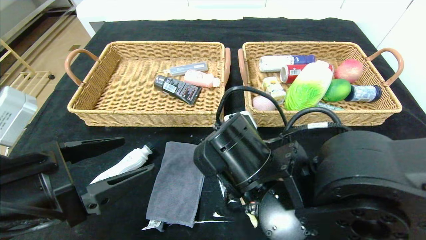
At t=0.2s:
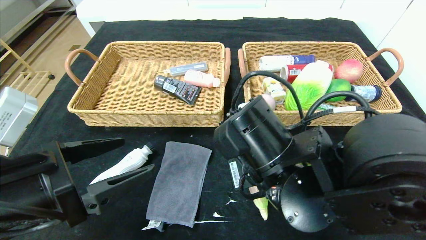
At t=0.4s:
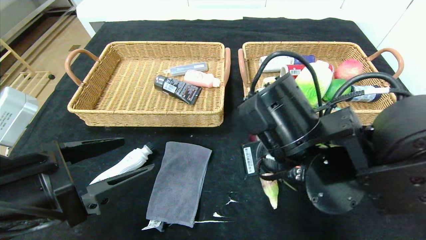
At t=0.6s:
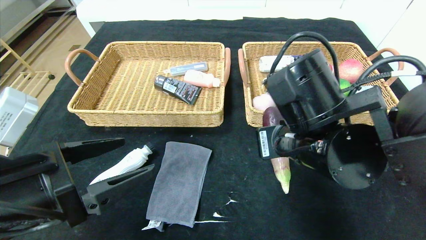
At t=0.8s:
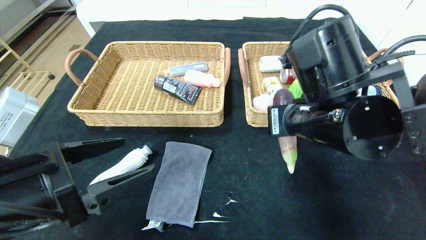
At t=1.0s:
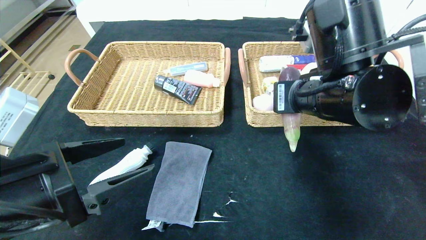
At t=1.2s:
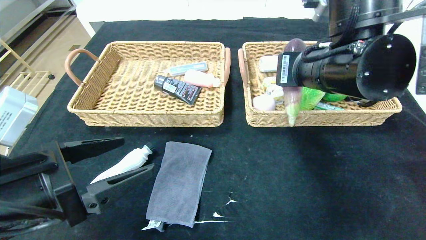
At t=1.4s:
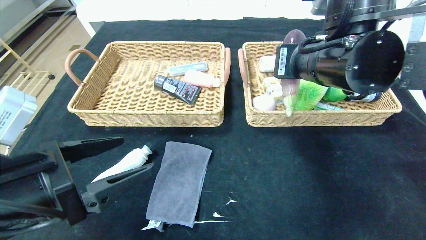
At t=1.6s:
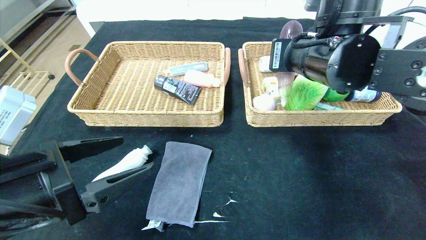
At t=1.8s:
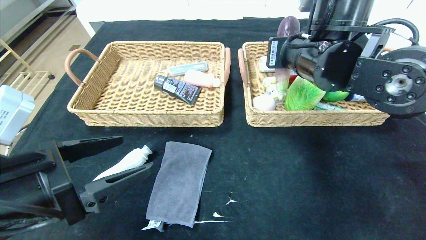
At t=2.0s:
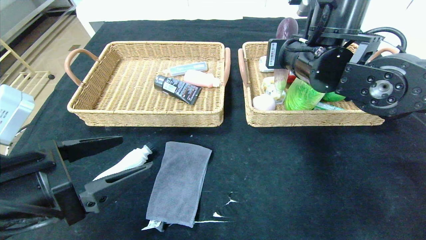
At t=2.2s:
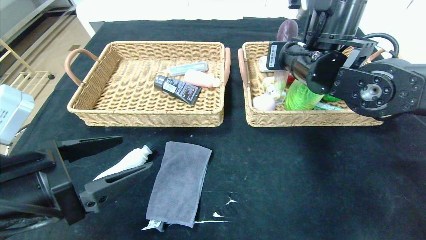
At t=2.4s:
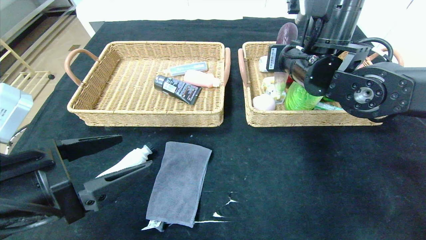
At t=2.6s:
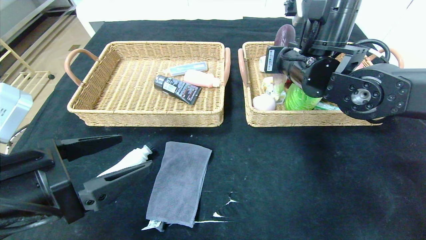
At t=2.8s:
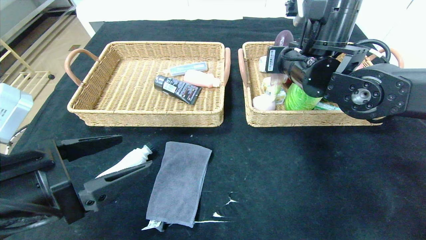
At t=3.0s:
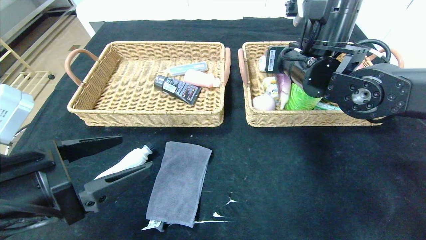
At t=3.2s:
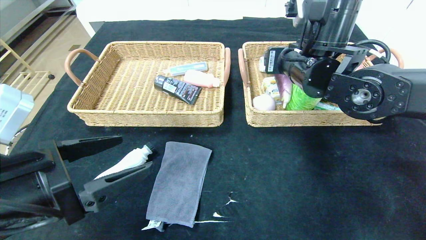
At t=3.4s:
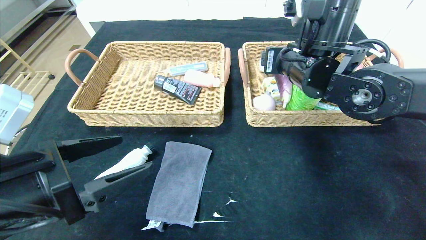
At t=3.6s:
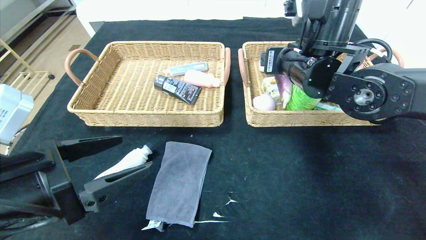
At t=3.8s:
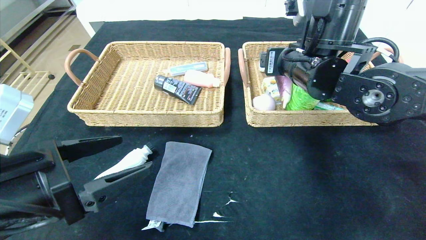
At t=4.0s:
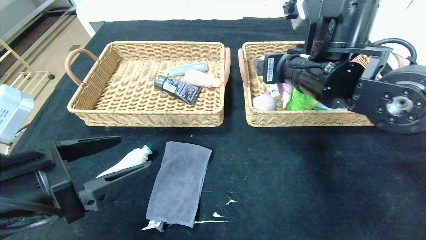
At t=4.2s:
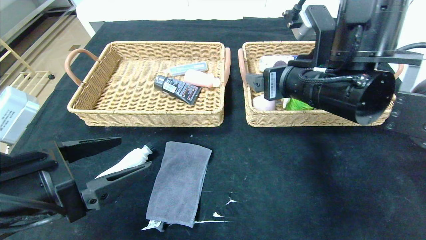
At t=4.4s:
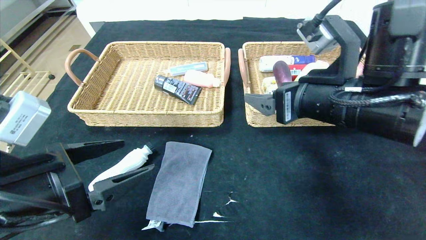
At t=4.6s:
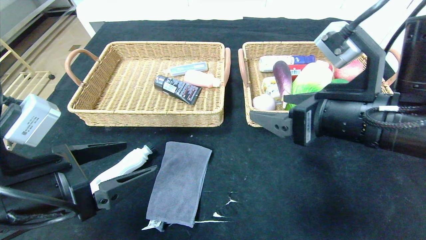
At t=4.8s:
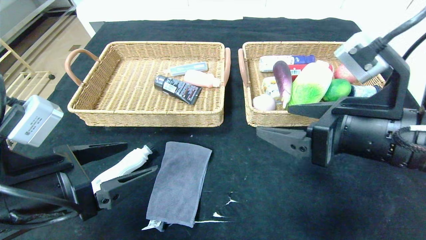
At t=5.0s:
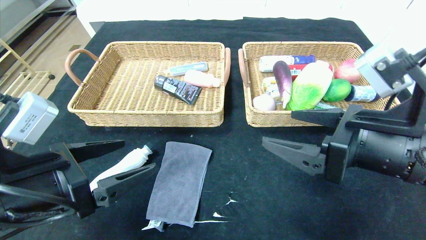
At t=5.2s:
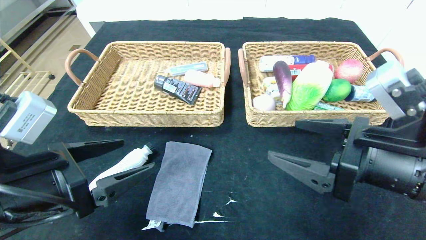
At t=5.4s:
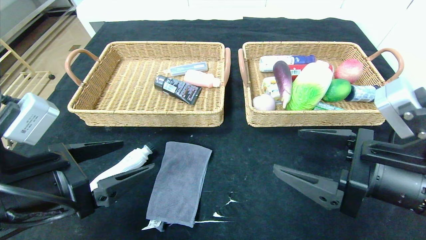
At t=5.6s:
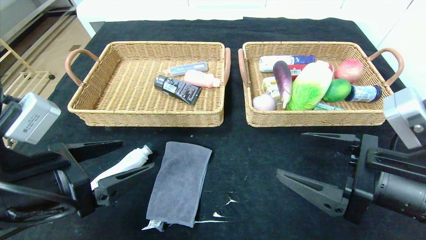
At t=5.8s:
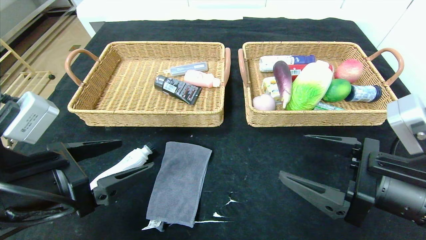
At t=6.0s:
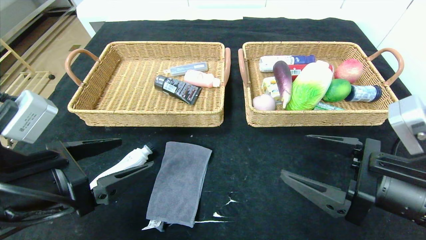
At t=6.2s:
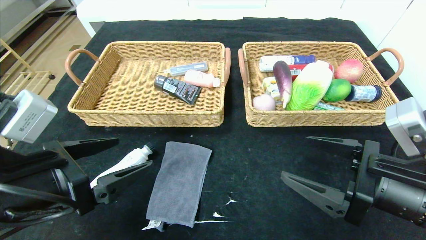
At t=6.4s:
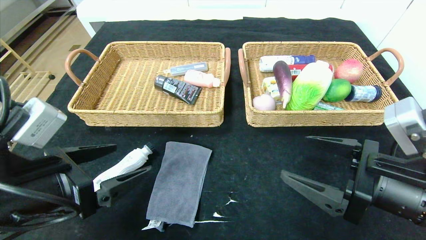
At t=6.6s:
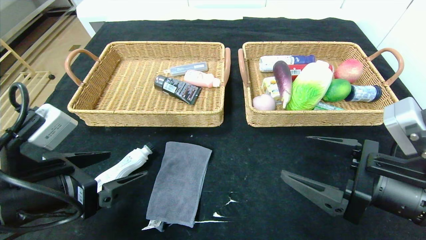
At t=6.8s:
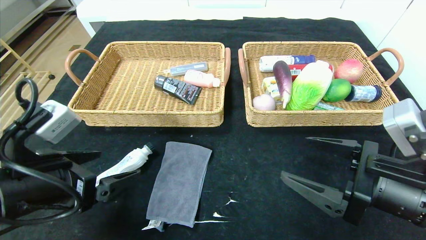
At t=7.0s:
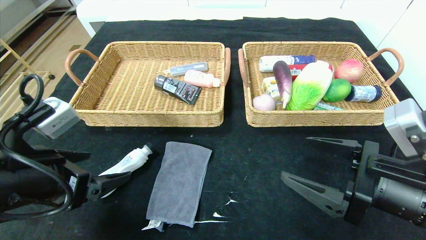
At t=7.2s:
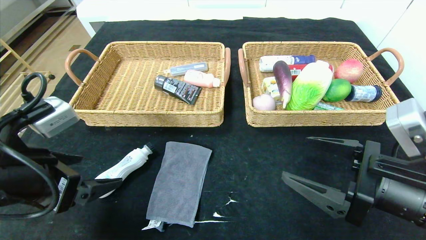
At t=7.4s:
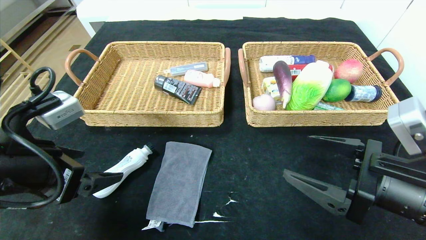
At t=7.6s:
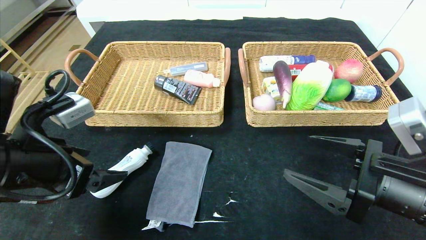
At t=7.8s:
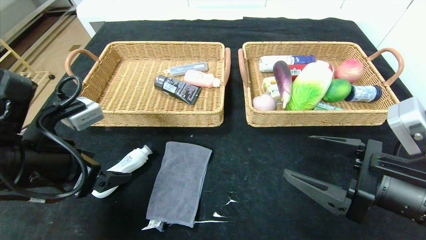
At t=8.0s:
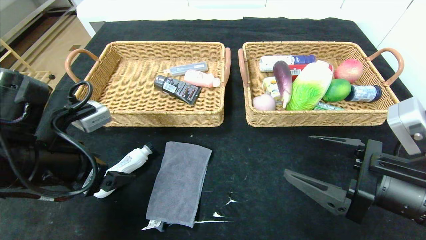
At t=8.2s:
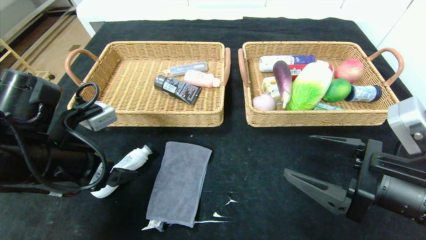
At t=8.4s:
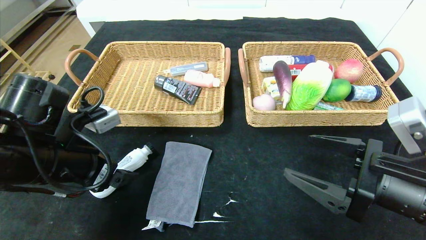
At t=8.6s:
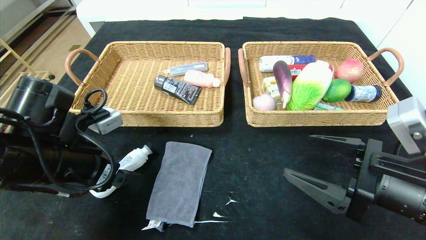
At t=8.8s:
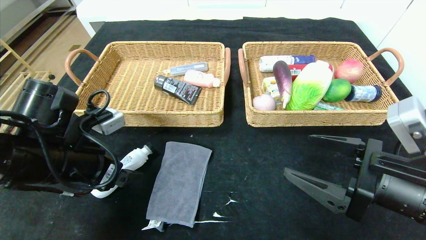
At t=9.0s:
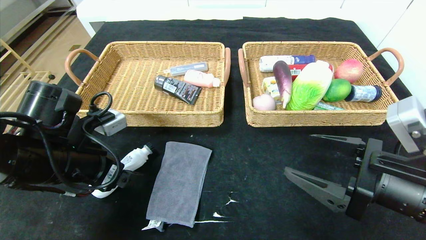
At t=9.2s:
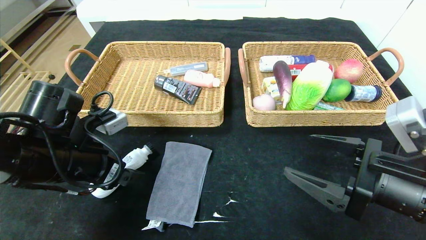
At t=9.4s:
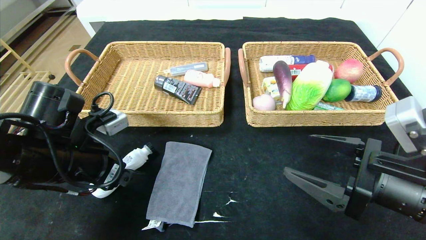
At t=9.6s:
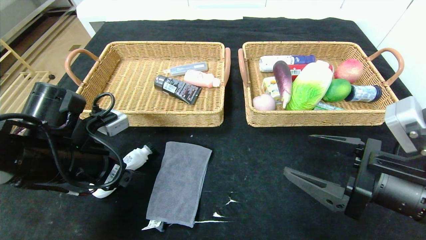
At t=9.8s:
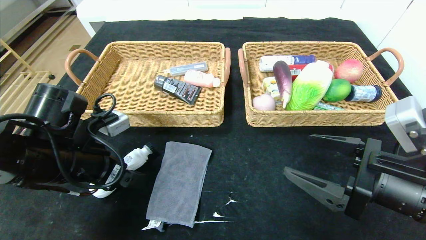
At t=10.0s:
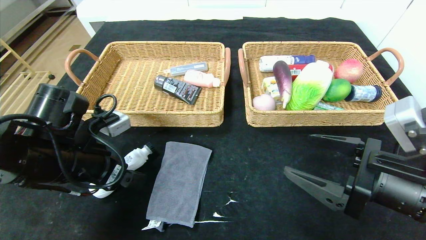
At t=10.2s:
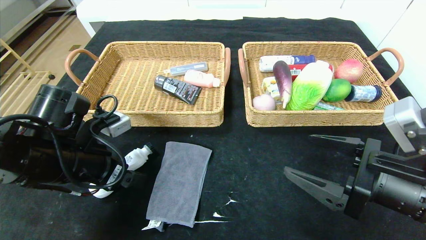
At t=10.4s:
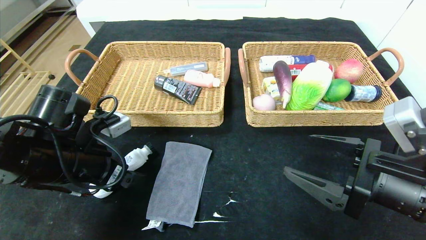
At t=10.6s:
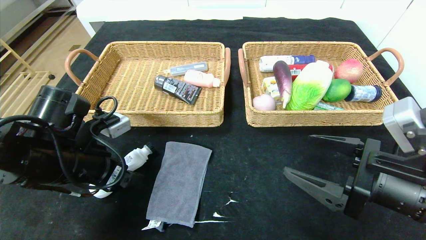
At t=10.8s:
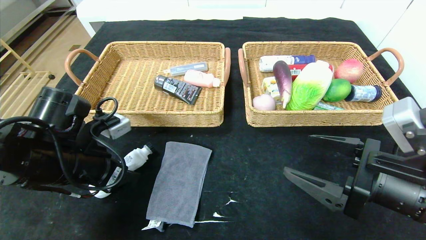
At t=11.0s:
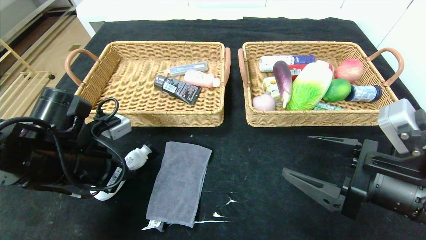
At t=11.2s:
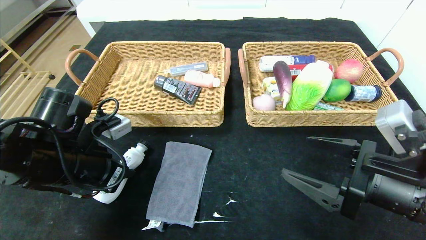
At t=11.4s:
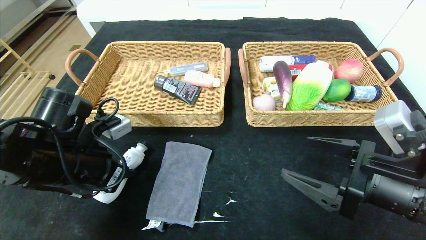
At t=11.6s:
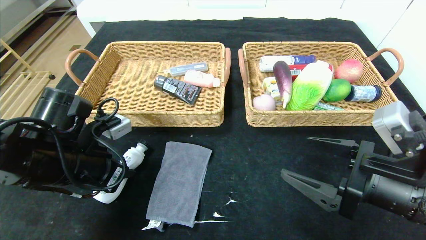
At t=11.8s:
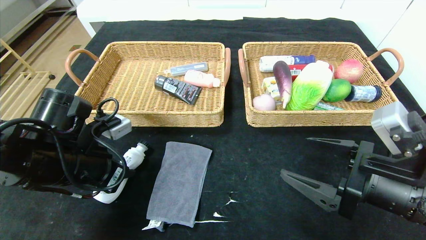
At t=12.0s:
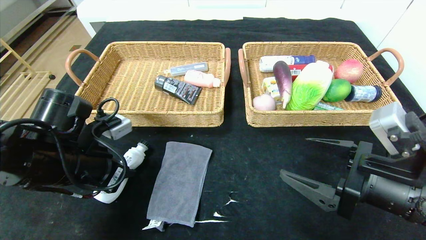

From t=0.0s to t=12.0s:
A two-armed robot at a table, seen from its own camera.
Step, from t=0.0s to t=5.2s: Pick up the eggplant and put it in the right basket.
From t=0.0s to t=1.6s: The right gripper travels upward, forward and to the right by some 20 cm.
From t=1.6s to t=3.0s: The right gripper changes place by some 5 cm.
From t=3.0s to t=4.4s: The right gripper is displaced backward by some 10 cm.
From t=4.4s to t=6.0s: The right gripper travels downward, backward and to the right by approximately 10 cm.
From t=7.6s to t=9.0s: The left gripper shifts by some 5 cm.
From t=9.0s to t=10.4s: Both grippers stay about where they are.
From t=10.4s to t=12.0s: The left gripper closes.

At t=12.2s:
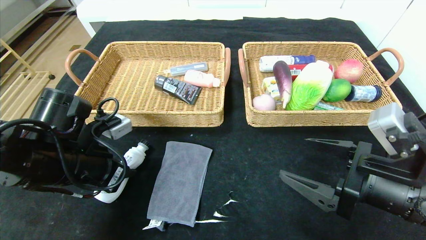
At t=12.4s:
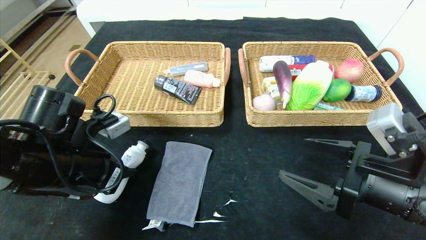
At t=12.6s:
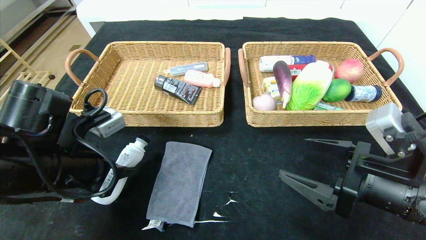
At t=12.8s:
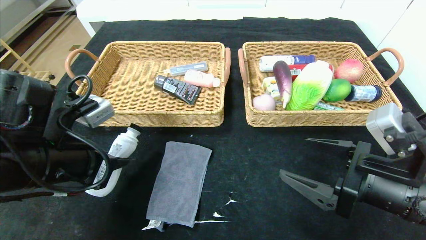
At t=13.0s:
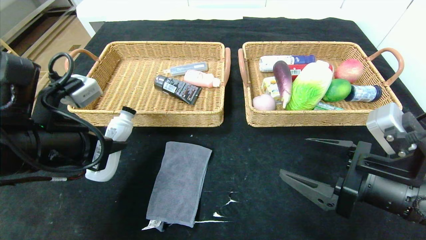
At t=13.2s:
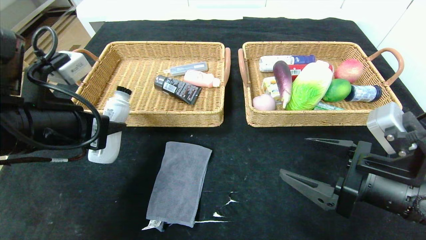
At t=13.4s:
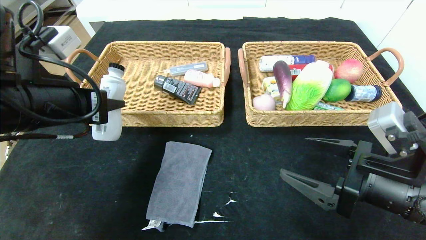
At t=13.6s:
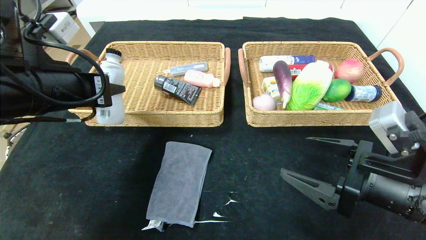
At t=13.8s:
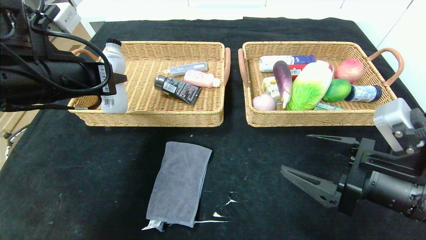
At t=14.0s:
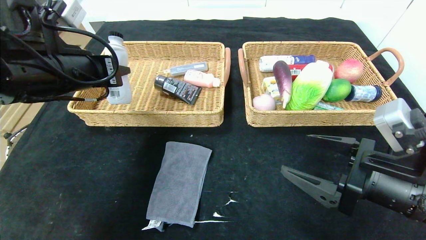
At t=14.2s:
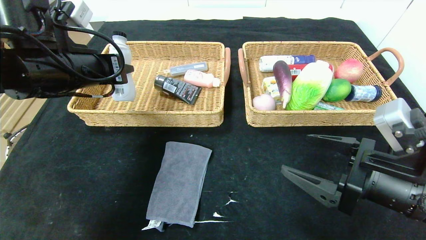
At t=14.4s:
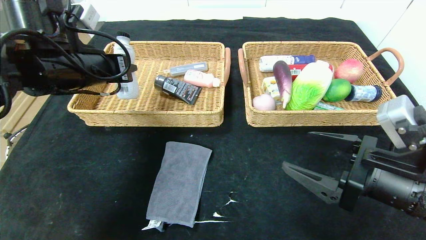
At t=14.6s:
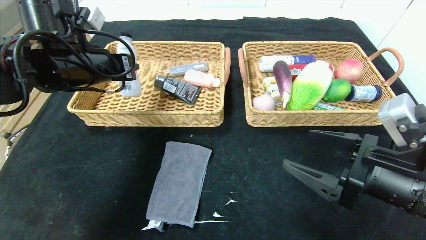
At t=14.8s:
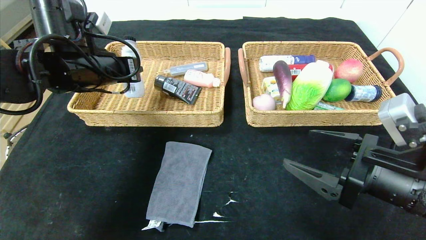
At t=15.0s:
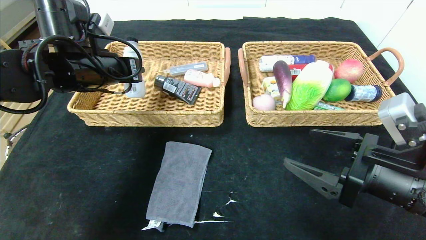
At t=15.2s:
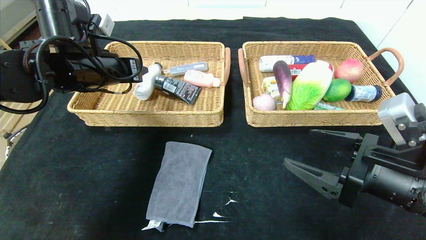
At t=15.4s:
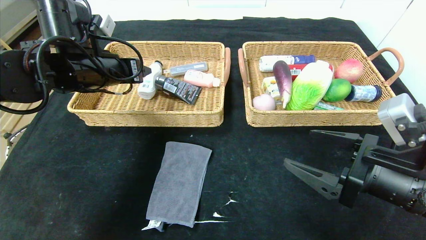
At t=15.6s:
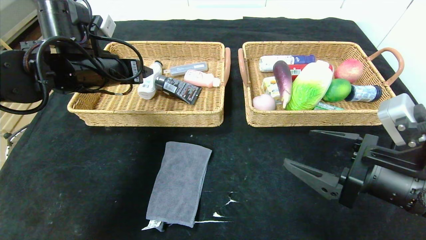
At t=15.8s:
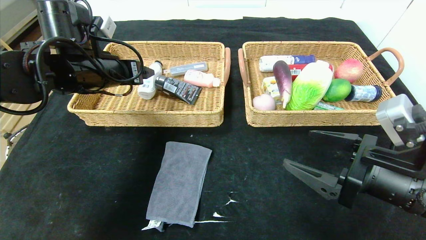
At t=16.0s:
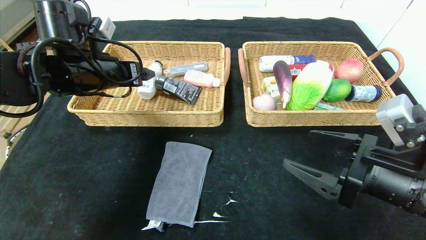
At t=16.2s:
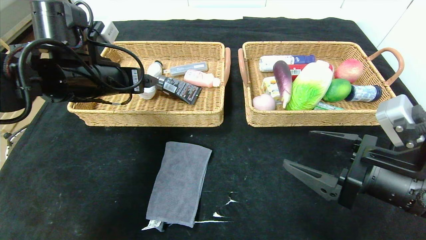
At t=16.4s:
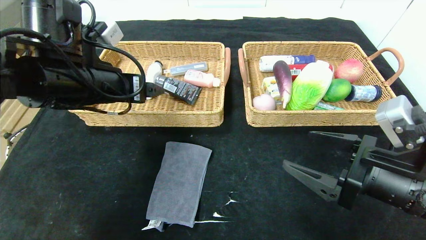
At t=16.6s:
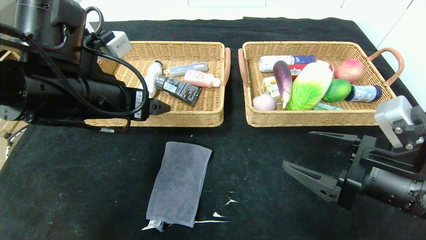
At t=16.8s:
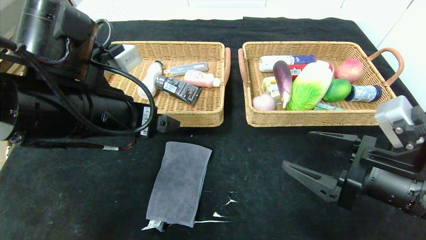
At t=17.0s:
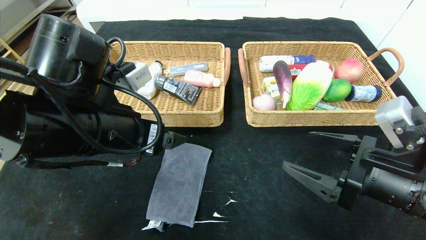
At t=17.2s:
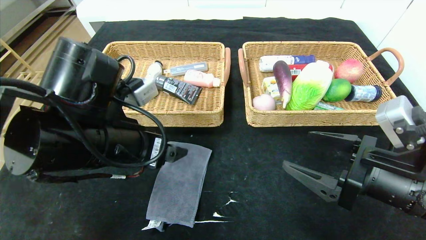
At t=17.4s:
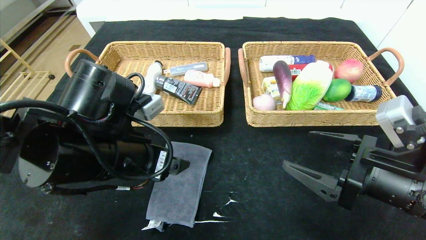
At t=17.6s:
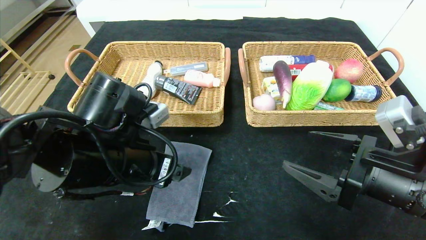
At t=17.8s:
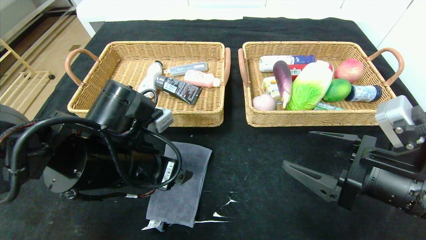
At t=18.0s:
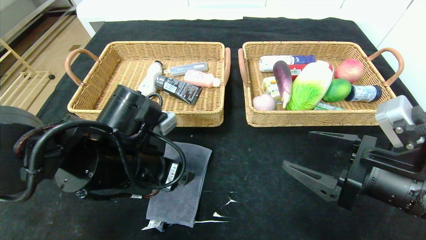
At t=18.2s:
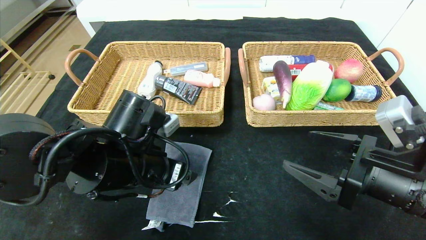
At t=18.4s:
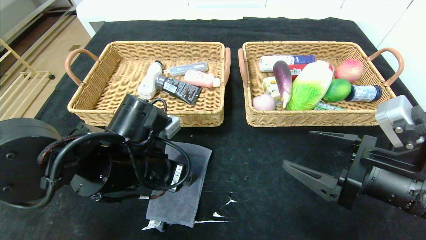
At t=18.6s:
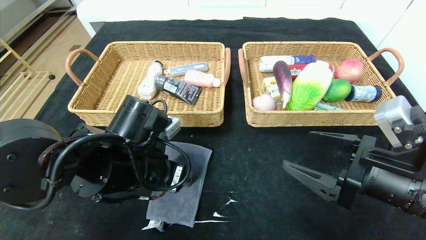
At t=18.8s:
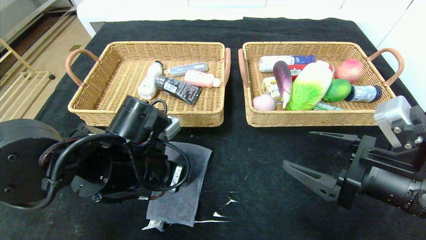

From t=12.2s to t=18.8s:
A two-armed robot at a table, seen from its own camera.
Step, from t=12.2s to t=16.8s: Pick up the washing liquid and put it in the left basket.
From t=12.2s to t=13.8s: The left gripper travels upward by roughly 10 cm.
From t=13.8s to t=15.4s: The left gripper moves forward, roughly 10 cm, and opens its fingers.
From t=15.4s to t=17.2s: The left gripper heads backward, to the right and downward, covering roughly 15 cm.
From t=17.2s to t=18.8s: The left gripper travels downward by approximately 5 cm.
